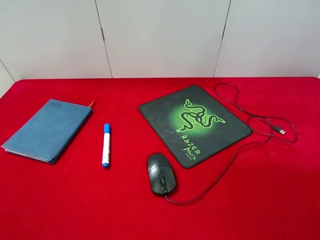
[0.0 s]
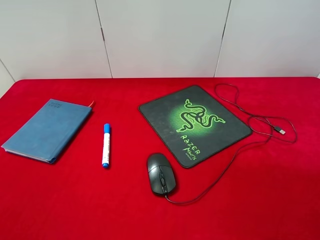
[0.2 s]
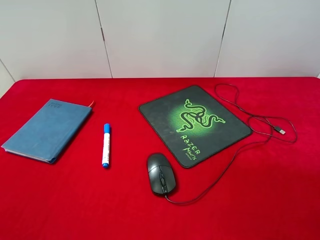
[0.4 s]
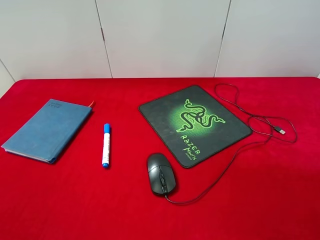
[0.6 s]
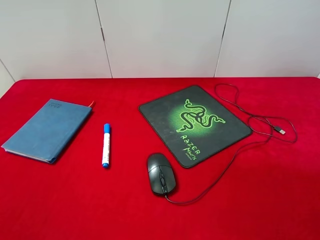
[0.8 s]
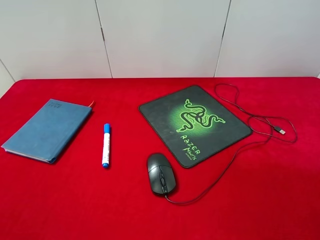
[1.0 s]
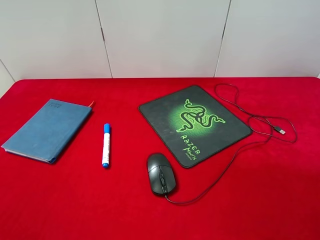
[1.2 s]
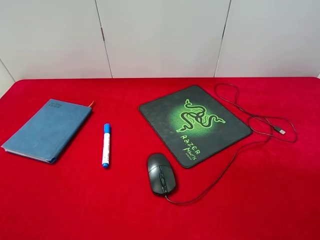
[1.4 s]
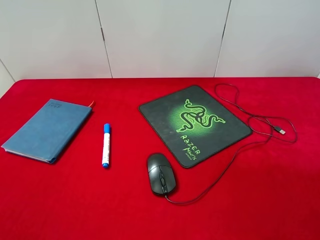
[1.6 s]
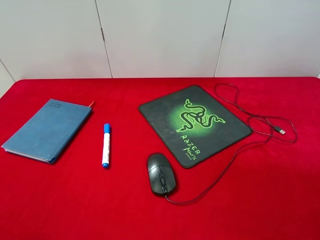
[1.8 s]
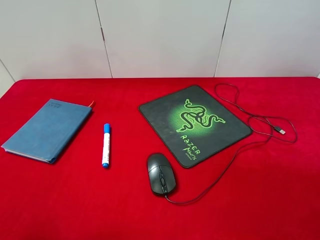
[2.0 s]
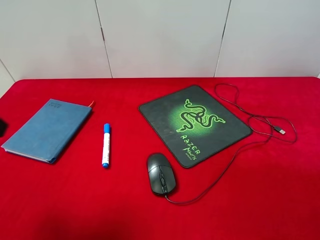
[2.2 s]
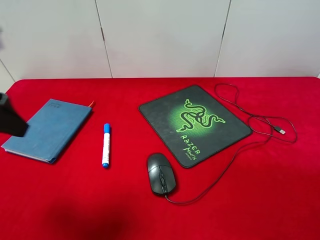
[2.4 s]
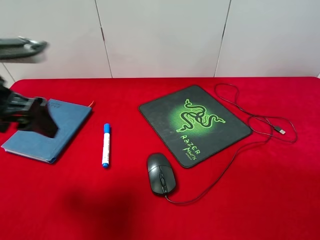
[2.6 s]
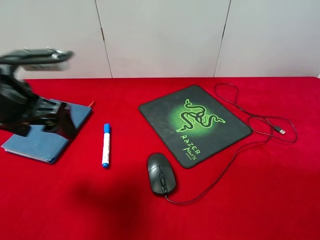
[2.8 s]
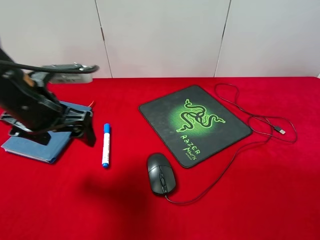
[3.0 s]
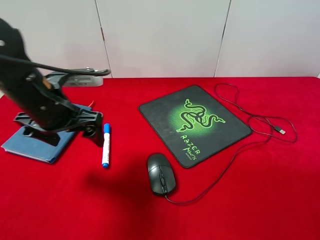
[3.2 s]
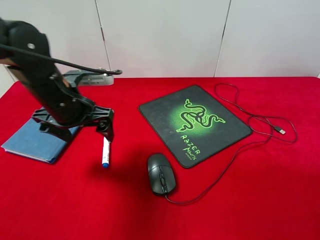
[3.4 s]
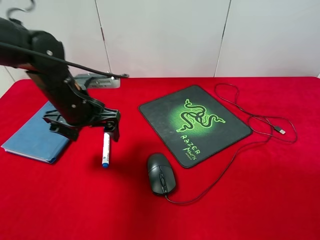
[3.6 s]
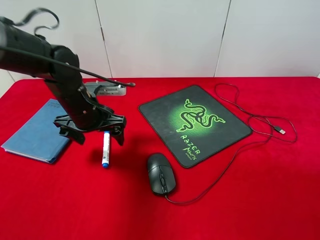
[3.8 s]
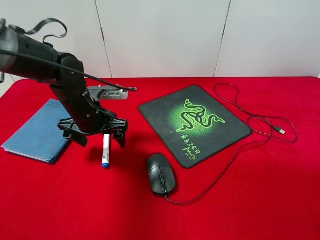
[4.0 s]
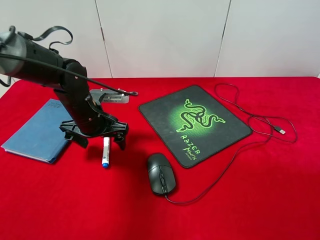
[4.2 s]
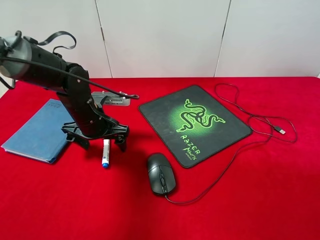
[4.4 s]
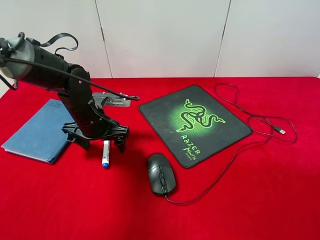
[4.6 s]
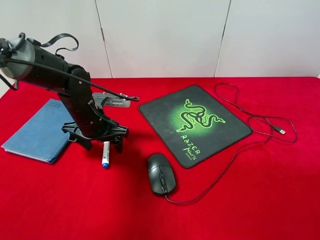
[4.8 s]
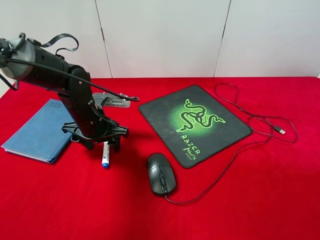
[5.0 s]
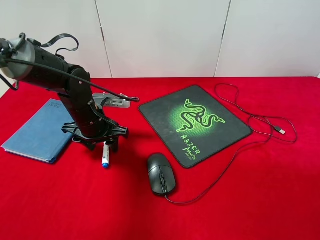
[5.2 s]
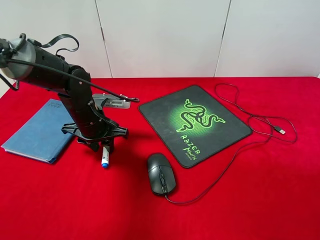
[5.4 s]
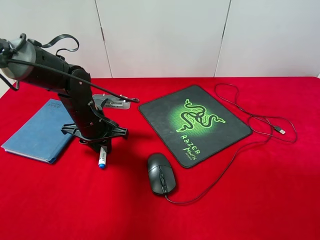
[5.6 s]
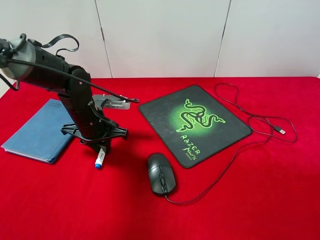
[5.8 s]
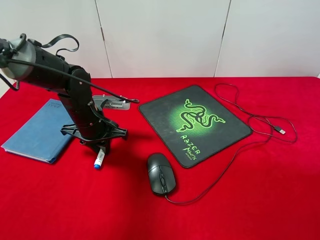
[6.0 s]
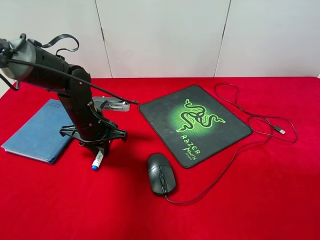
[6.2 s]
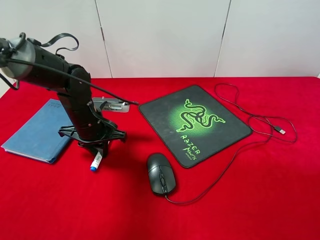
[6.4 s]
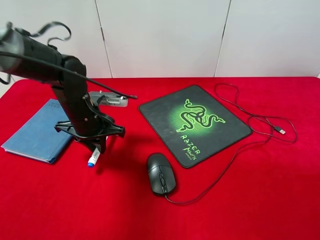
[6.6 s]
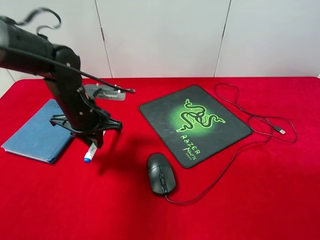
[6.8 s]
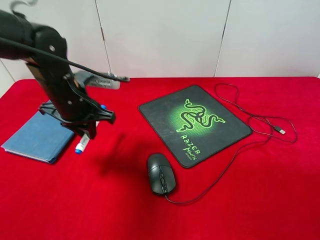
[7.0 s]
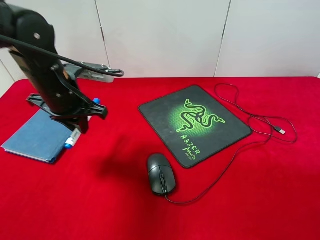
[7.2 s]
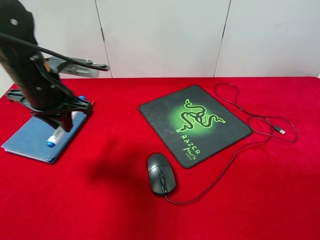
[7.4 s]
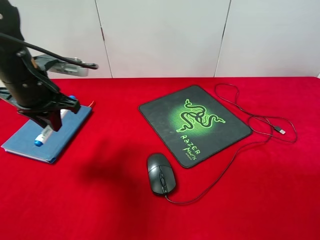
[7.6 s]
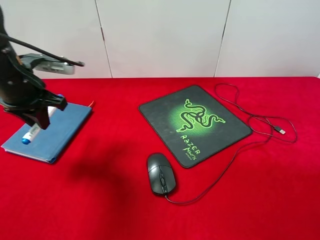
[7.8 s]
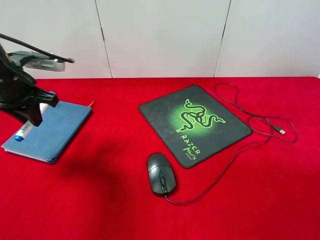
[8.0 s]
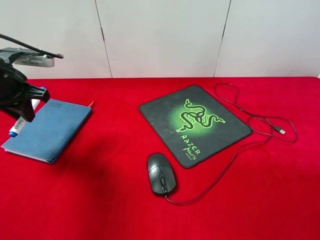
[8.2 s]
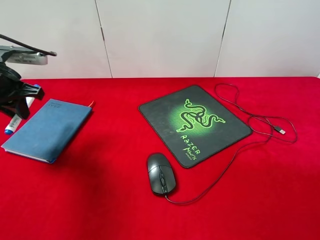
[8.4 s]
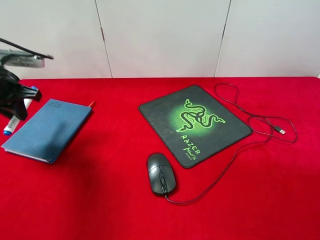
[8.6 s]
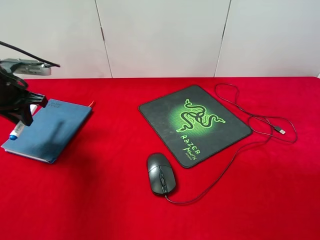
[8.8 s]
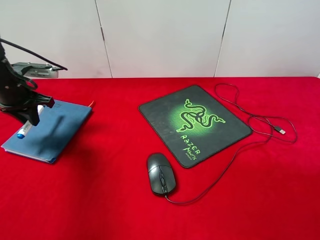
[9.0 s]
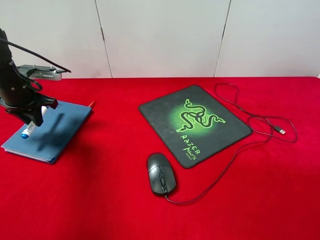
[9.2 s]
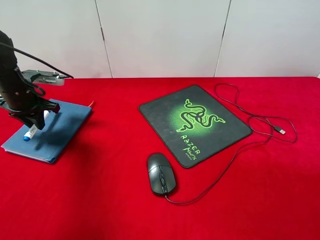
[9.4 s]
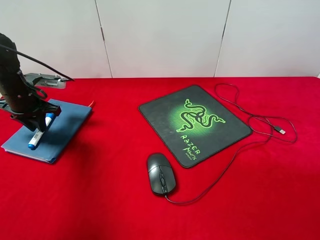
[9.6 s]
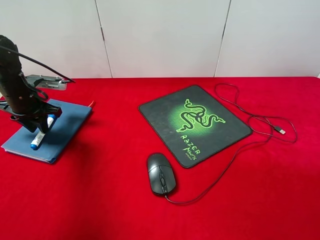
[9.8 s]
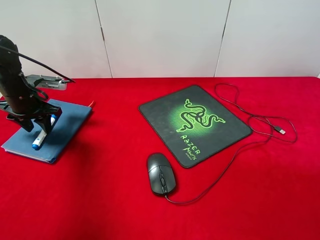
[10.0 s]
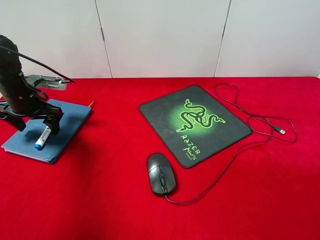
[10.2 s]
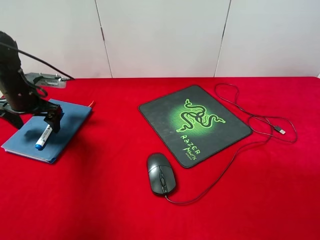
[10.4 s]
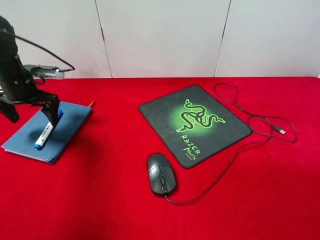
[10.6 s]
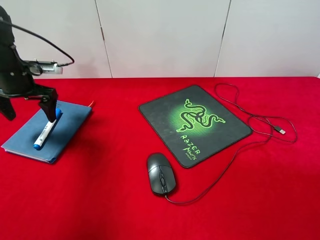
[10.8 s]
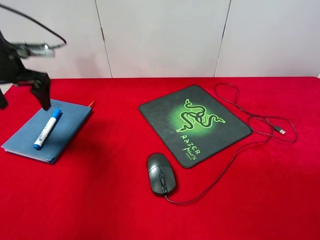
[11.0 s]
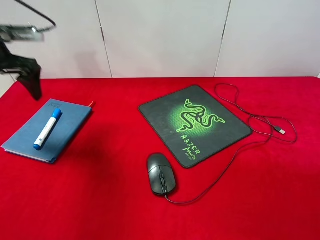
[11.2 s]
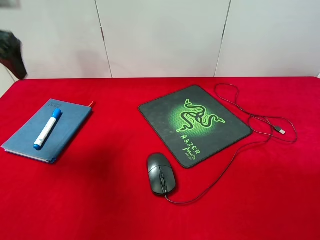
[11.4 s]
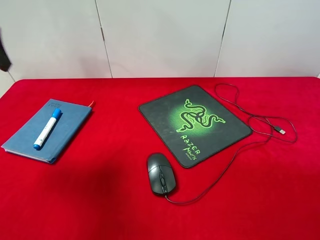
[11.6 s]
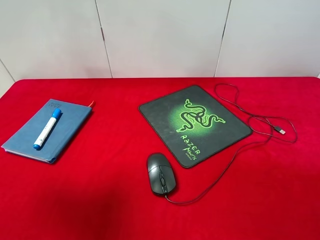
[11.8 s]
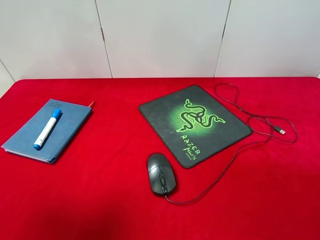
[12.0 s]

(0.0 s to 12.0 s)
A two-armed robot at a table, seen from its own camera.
Step, 0.0 s - 6.8 s: Pick up the marker pen with left gripper.
Step, 7.0 s - 10.4 s: Place the marker pen on the notebook with left gripper.
1.6 s - 3.0 s: The left gripper heads forward, to the right and downward, covering about 25 cm.
3.0 s - 4.4 s: The left gripper travels downward and forward by some 15 cm.
4.4 s - 6.0 s: The left gripper closes.
6.0 s - 7.6 s: The left gripper goes roughly 15 cm upward and to the left.
7.6 s - 9.0 s: The left gripper travels to the left and forward by approximately 10 cm.
9.0 s - 10.4 s: The left gripper opens up.
10.4 s - 12.0 s: The left gripper heads upward and backward, covering roughly 30 cm.

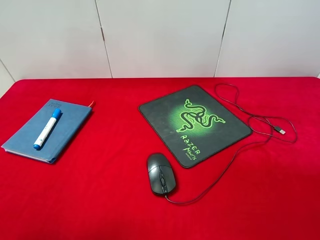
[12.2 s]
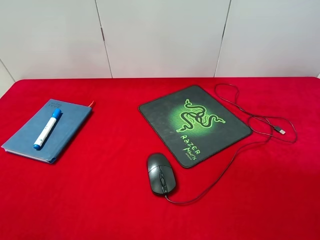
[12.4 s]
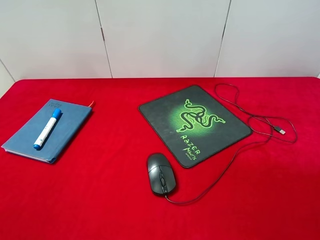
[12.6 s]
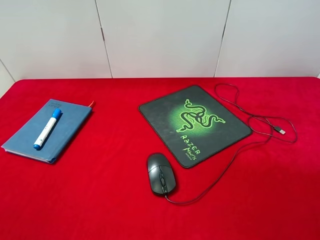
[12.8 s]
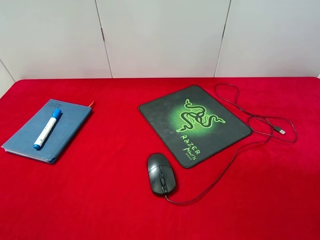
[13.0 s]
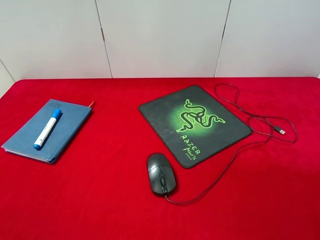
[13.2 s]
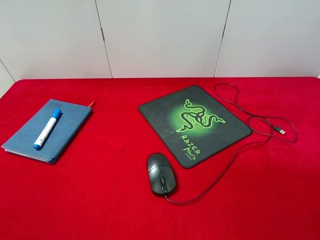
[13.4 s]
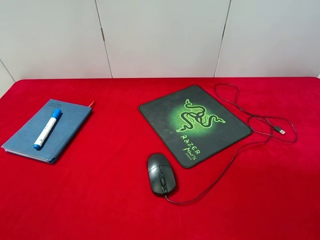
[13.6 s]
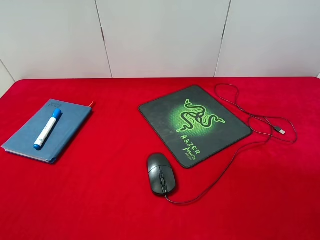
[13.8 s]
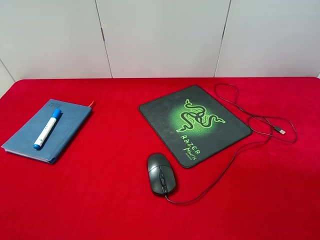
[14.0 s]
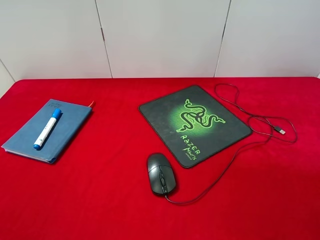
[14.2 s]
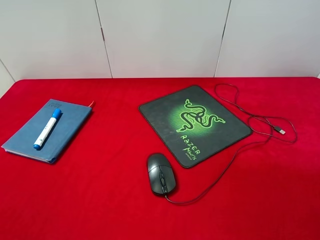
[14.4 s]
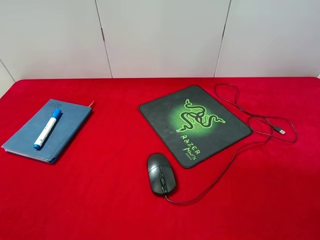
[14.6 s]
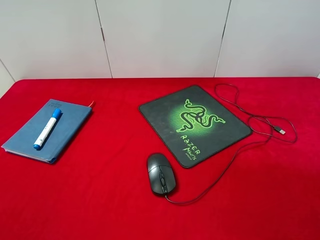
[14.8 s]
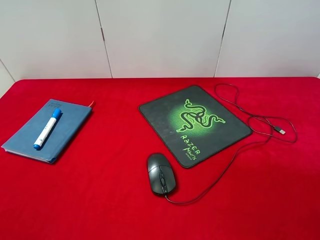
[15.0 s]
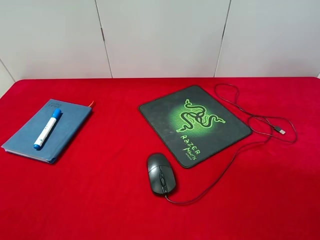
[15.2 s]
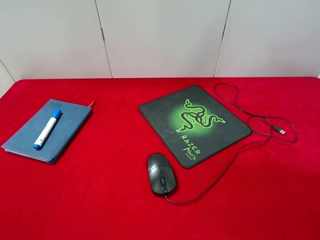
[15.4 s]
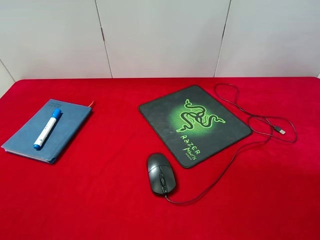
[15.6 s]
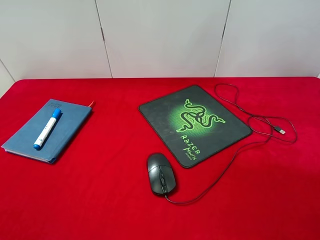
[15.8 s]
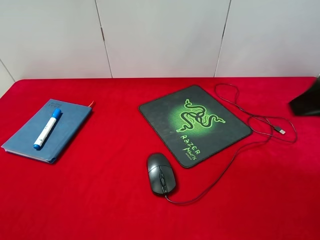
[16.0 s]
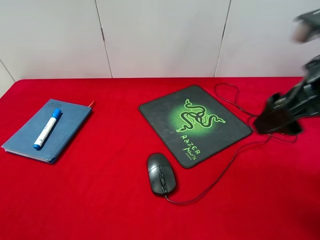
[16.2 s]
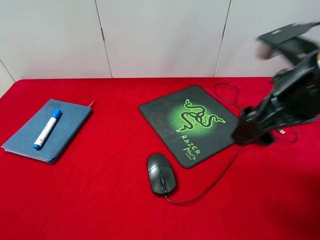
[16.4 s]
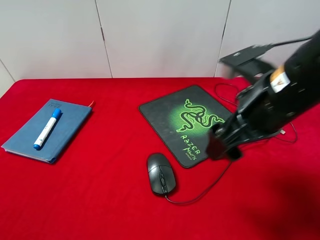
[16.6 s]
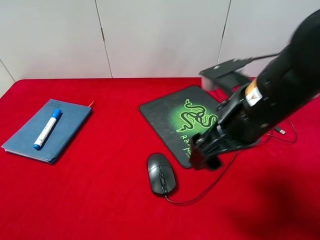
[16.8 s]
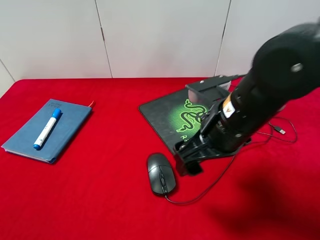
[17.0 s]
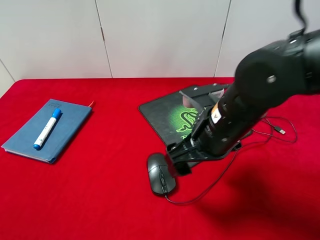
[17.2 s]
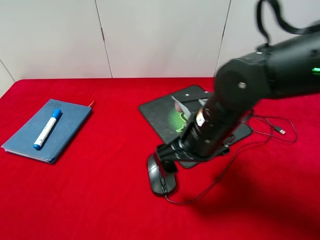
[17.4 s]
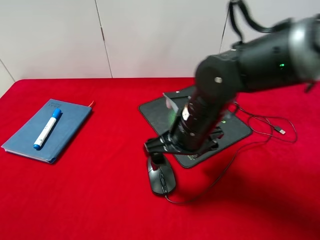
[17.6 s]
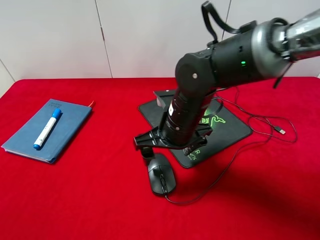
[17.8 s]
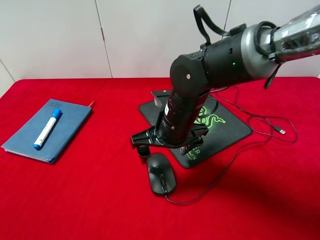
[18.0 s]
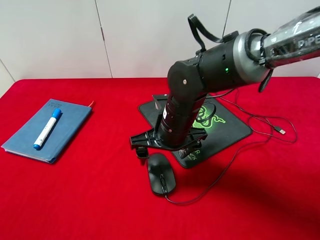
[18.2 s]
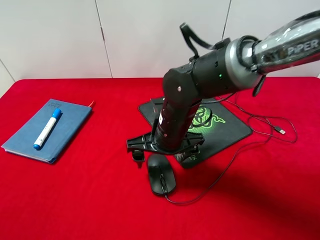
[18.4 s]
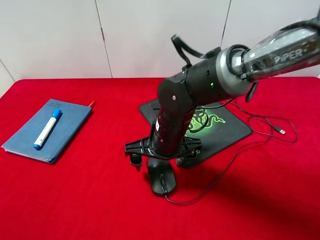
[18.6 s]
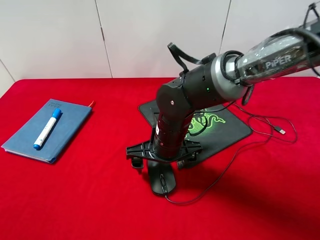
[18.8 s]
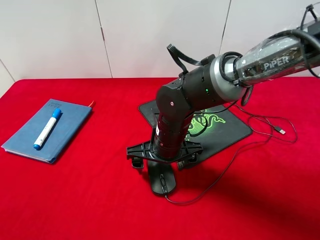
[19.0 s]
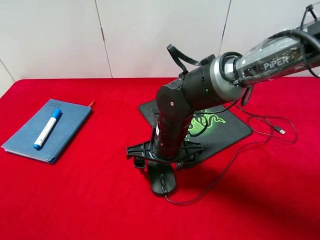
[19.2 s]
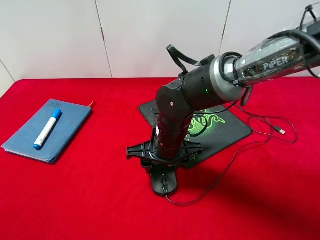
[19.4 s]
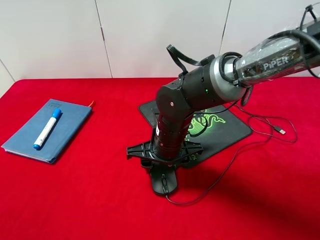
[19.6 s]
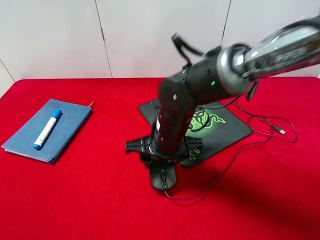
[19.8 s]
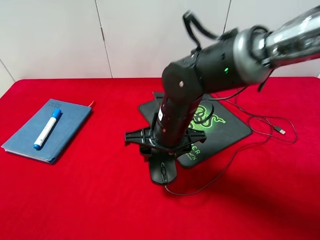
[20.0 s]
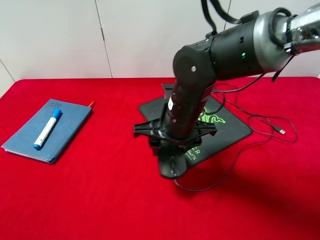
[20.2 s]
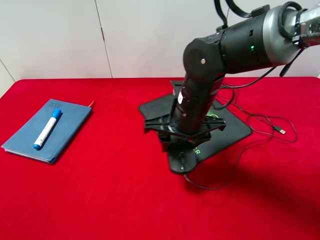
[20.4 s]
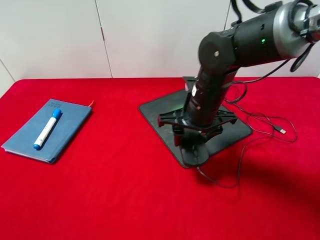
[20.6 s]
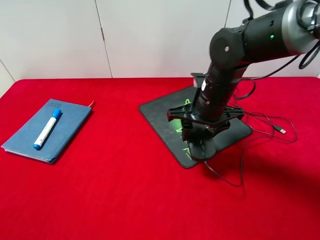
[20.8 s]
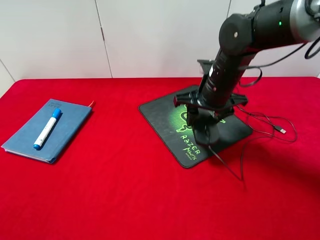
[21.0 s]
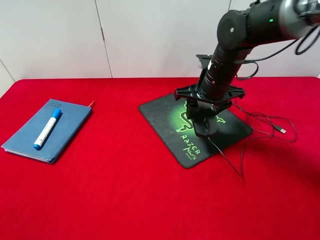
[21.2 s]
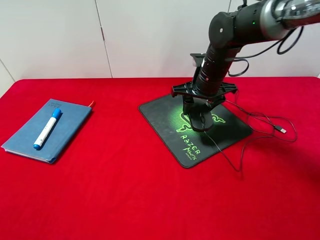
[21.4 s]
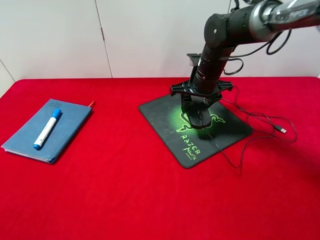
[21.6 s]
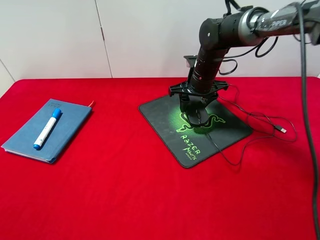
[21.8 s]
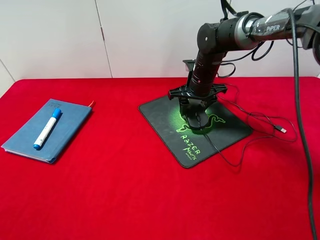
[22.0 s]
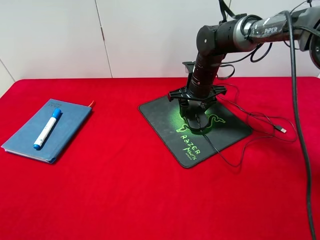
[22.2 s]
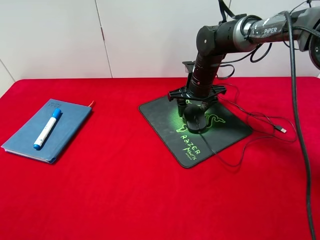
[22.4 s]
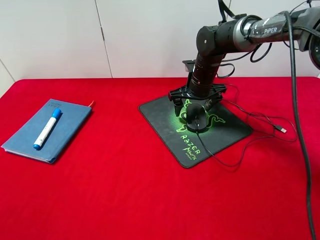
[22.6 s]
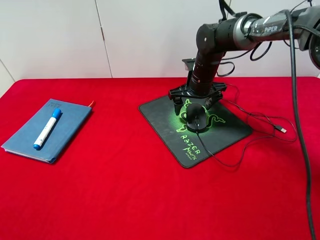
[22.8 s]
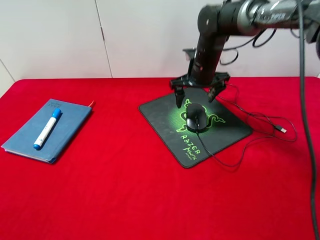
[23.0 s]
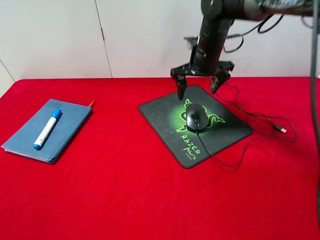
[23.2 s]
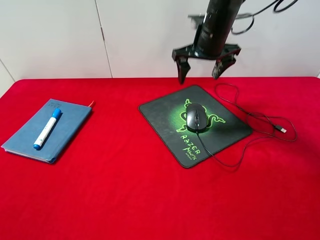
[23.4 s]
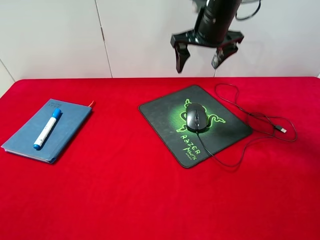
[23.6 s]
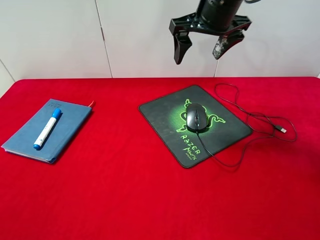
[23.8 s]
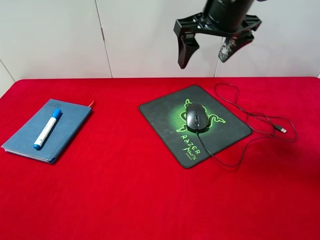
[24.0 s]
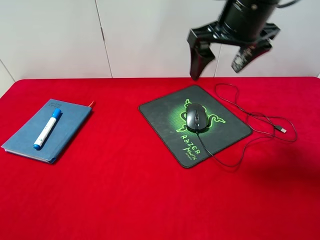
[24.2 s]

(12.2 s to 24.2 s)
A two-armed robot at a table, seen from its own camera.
Step, 12.2 s - 20.0 s: Pick up the mouse with right gripper.
Step, 20.2 s - 22.8 s: Place the mouse on the mouse pad with right gripper.
15.2 s - 16.6 s: The right gripper goes approximately 25 cm forward and to the left.
16.6 s - 18.2 s: The right gripper goes some 20 cm to the left, downward and forward.
18.2 s - 19.8 s: The right gripper closes.
19.8 s - 21.2 s: The right gripper is displaced forward, to the right and upward by approximately 15 cm.
21.2 s - 22.6 s: The right gripper shifts about 10 cm forward and downward, and opens its fingers.
22.6 s - 24.2 s: The right gripper goes approximately 25 cm upward and backward.
